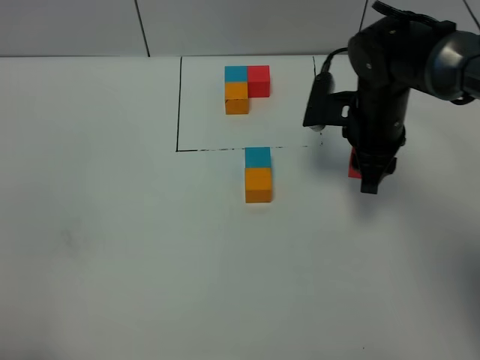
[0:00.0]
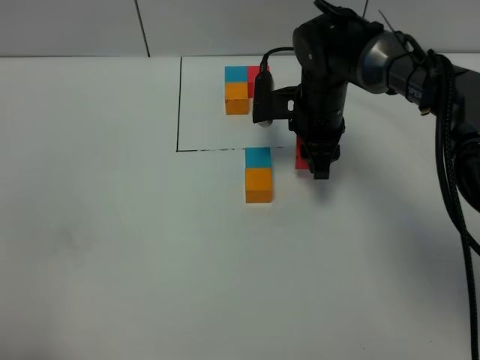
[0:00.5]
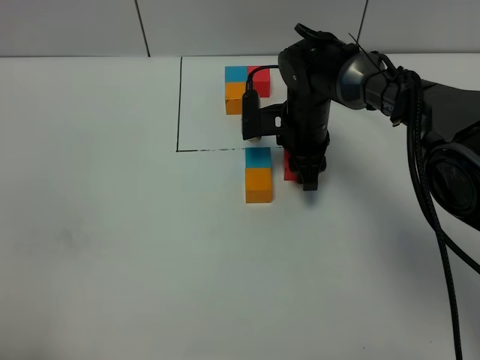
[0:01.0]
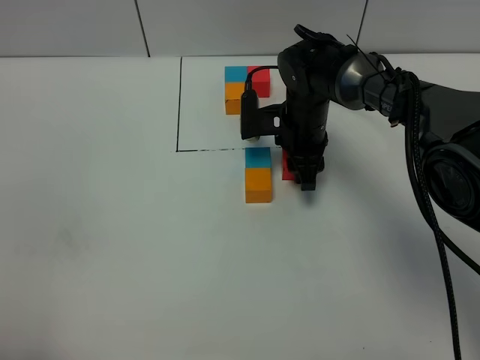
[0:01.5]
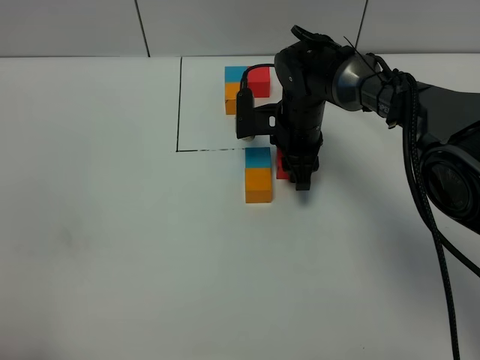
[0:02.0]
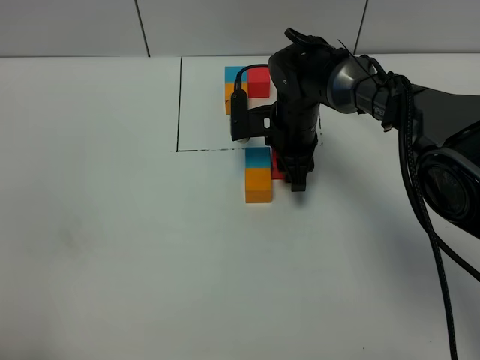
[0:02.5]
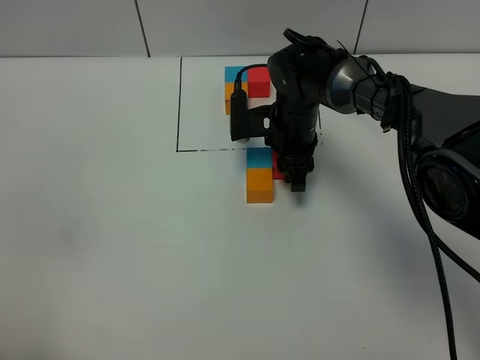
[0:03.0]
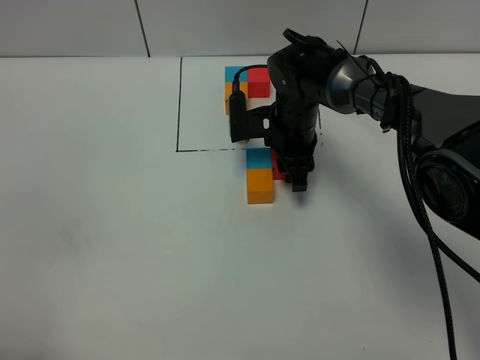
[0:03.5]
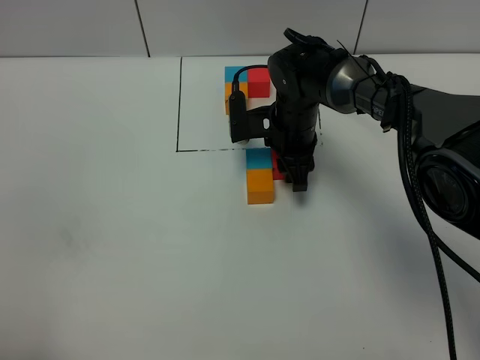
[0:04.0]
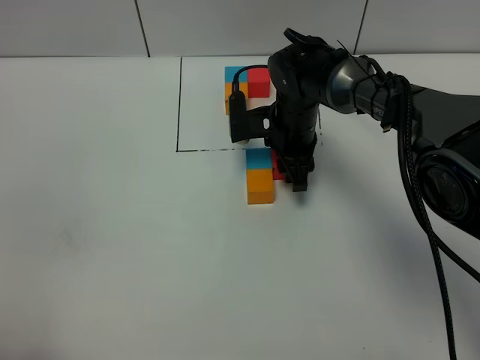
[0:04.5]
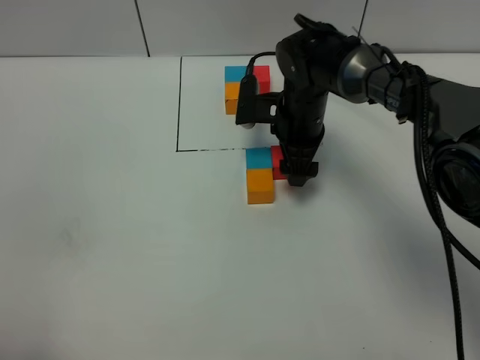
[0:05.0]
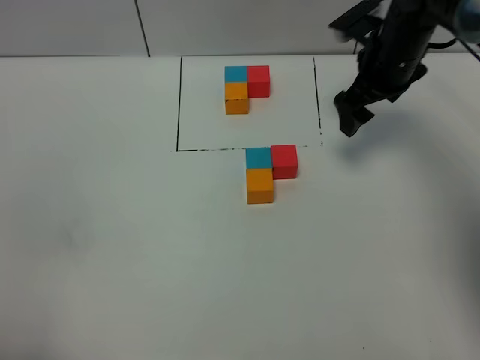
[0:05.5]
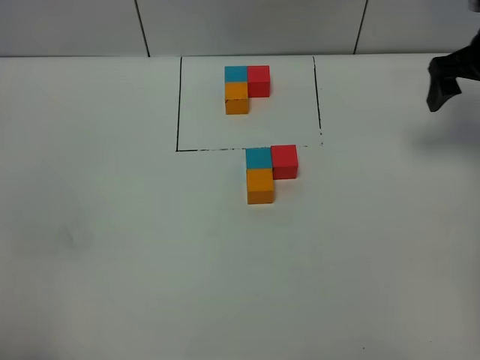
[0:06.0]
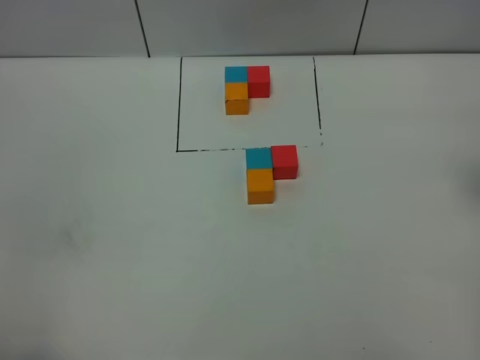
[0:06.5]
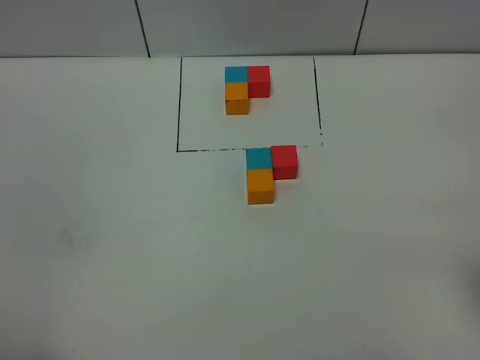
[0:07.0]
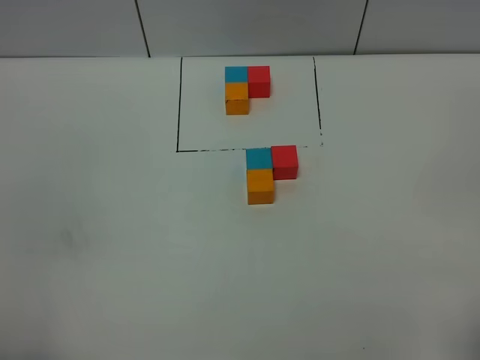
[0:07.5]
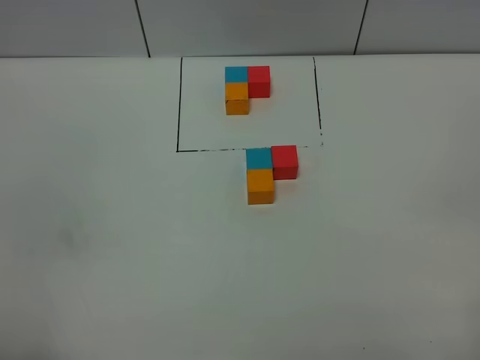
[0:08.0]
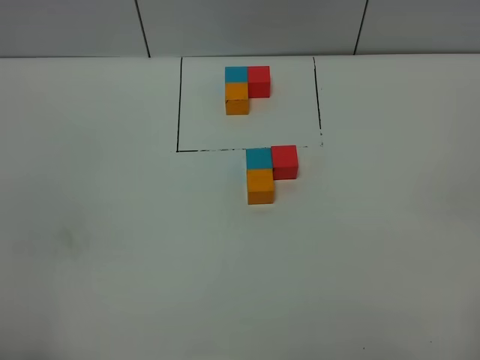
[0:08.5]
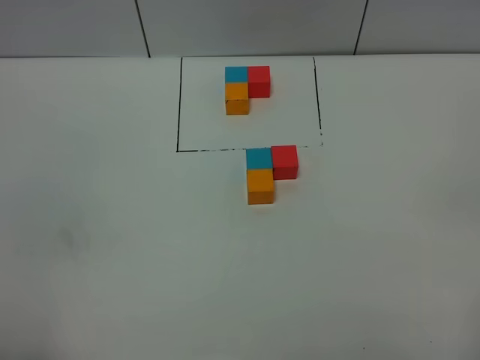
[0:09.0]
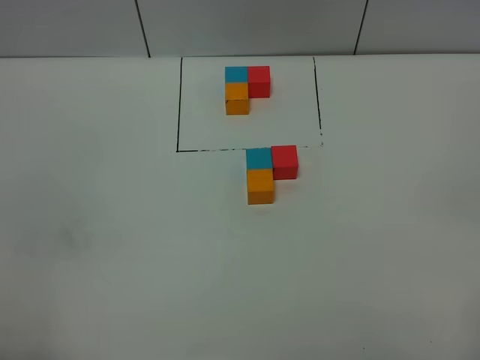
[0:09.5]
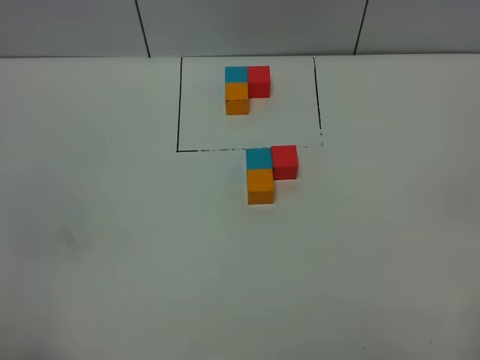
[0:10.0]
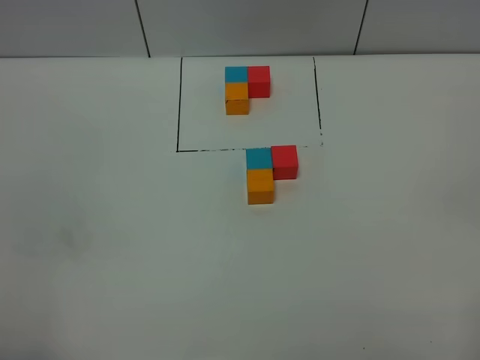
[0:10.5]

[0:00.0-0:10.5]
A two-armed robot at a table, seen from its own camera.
Task of the whole recording: According to the building block template in front, assemble the scattered blocks together.
Step, 0:00.0 to 0:04.5: Put the red build block on the right of the blue build block.
0:00.0 to 0:02.0: The right gripper goes about 10 cm to the left and downward.
0:02.0 to 0:04.0: Both grippers stay about where they are.
0:04.0 to 0:06.5: The right gripper moves to the right, upward and backward, some 35 cm, and opens.
0:08.5 to 0:10.5: Both grippers stay about where they are.

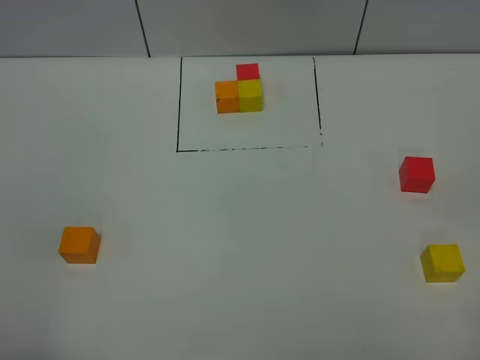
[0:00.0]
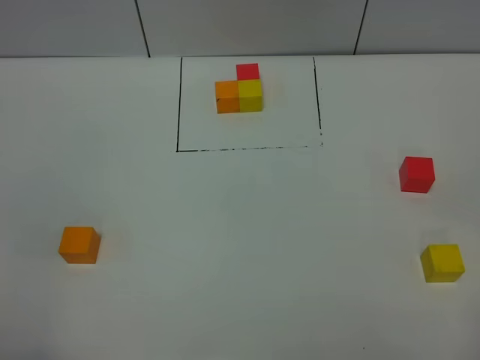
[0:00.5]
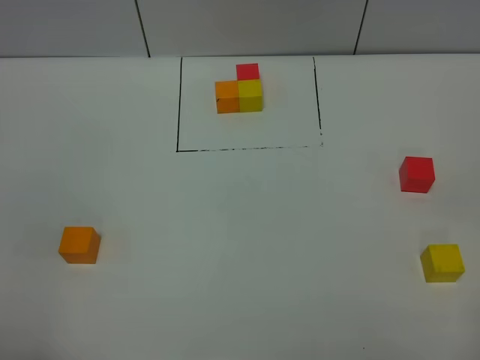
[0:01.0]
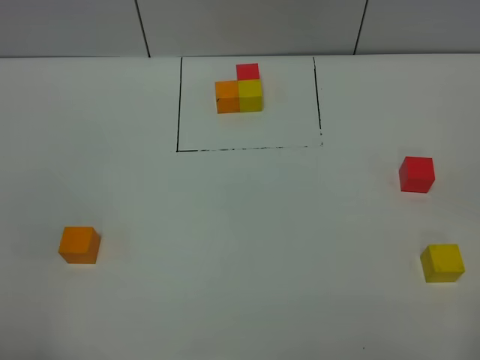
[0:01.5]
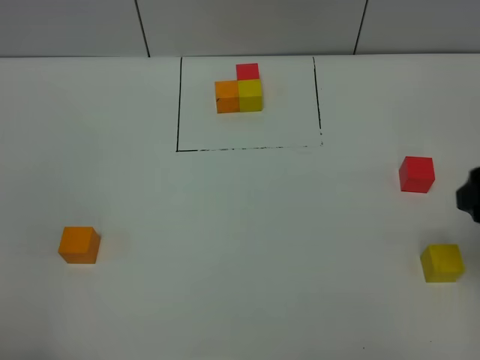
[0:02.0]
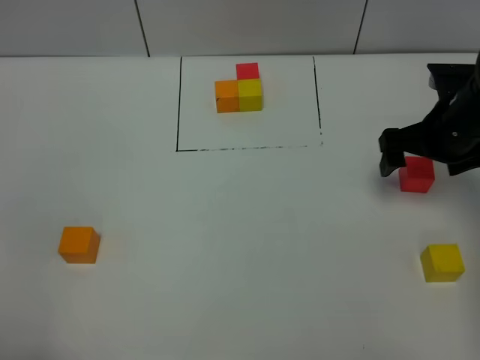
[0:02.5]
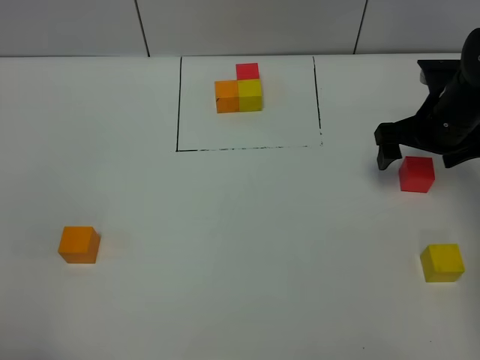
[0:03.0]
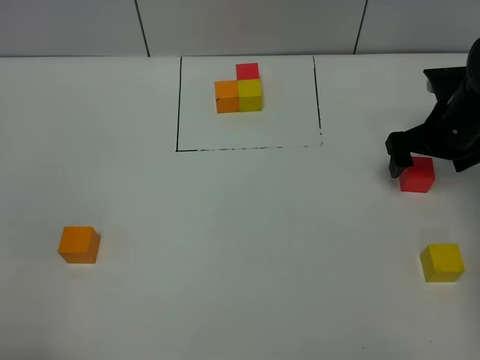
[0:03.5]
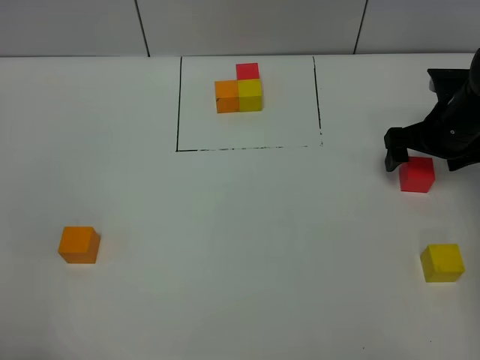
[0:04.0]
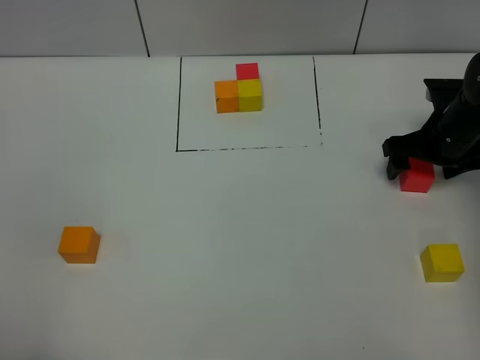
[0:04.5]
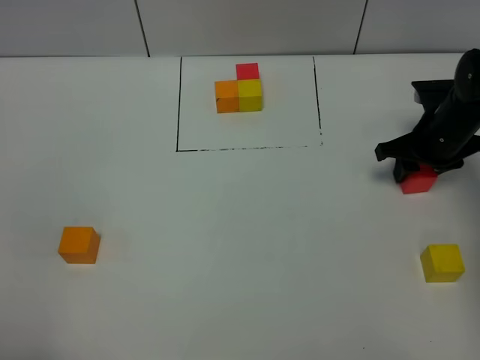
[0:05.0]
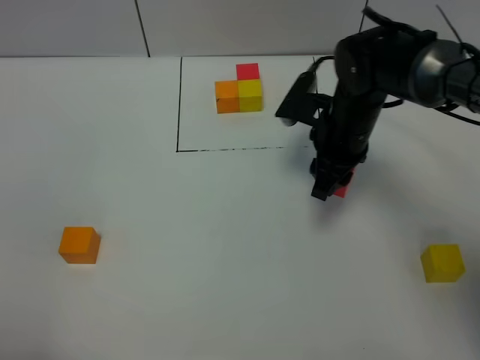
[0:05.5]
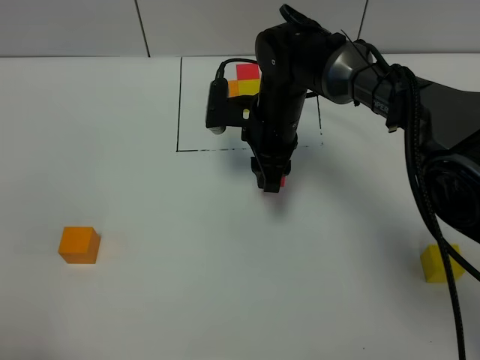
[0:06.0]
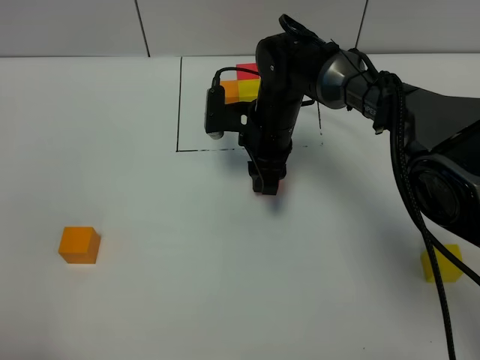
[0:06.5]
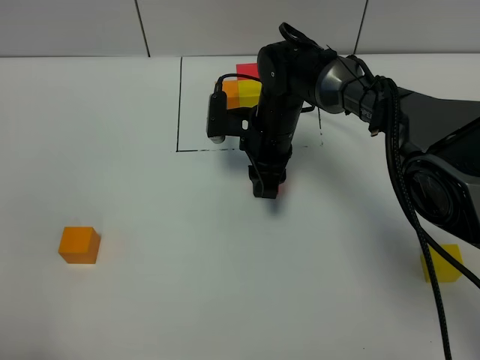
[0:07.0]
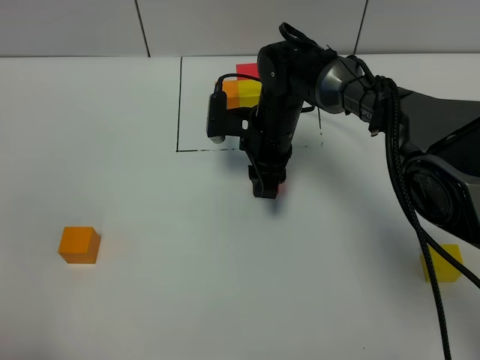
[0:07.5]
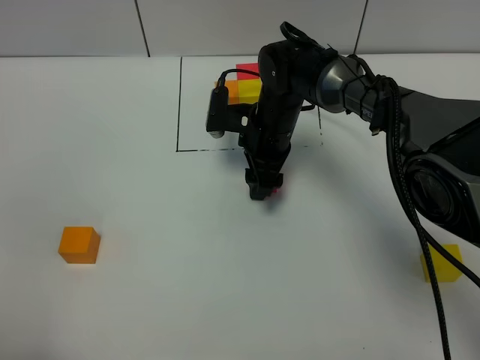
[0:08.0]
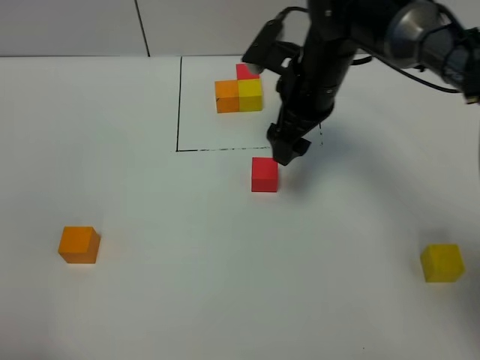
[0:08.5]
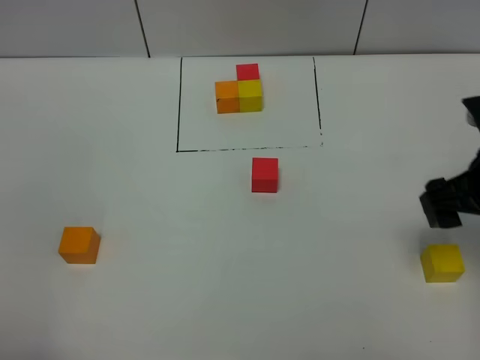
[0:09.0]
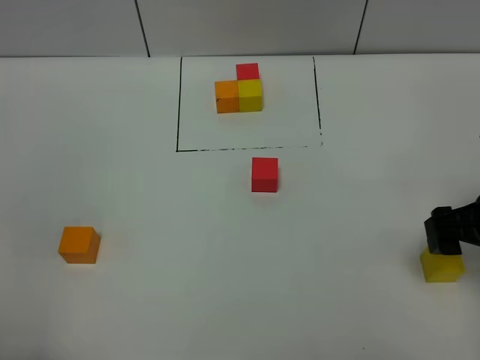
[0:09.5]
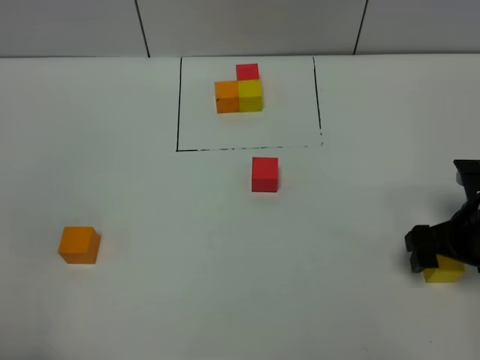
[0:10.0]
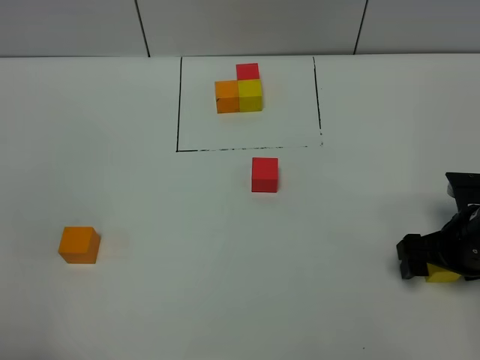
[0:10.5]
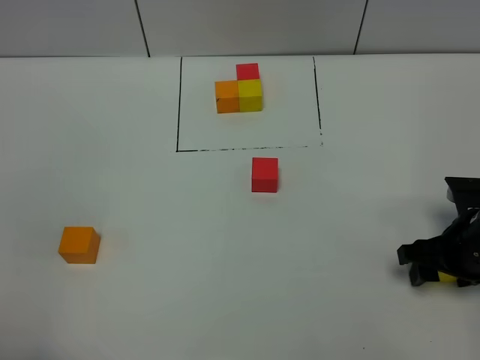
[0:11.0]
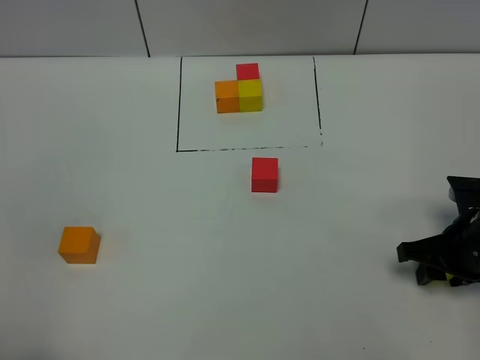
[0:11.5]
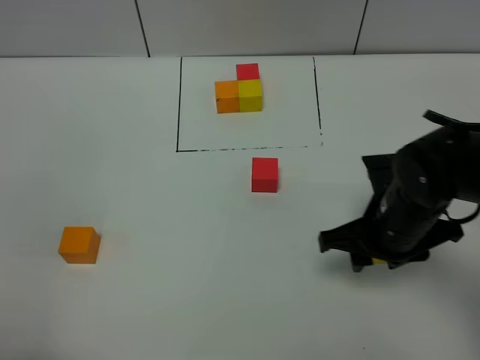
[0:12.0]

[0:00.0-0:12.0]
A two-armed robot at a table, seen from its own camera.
Task of the whole recording: According to the building block template in front, assemble the scattered blocks together.
Step, 0:00.0 to 0:07.5: Put the red build block in the center of the table.
0:00.0 to 0:02.0: The right gripper heads forward, covering some 20 cm.
0:02.0 to 0:04.0: The right gripper travels forward and downward by approximately 25 cm.
0:04.0 to 0:06.0: The right gripper goes about 25 cm to the left, and closes.
0:06.0 to 0:08.0: The right gripper opens.
0:08.0 to 0:10.0: The right gripper moves to the right and backward, approximately 30 cm.
0:10.0 to 0:12.0: The right gripper heads to the left, covering some 10 cm, and closes.

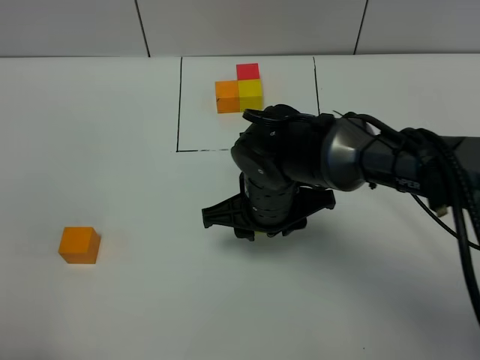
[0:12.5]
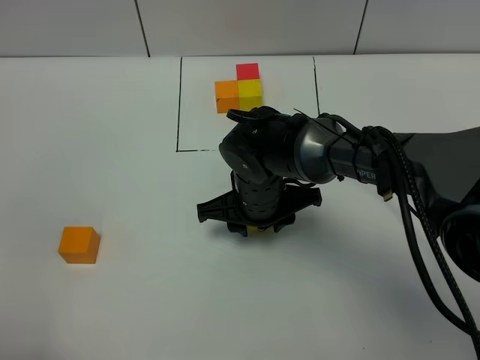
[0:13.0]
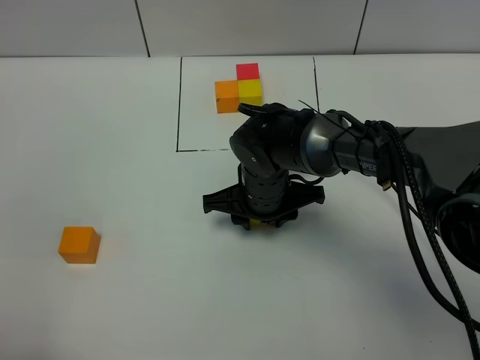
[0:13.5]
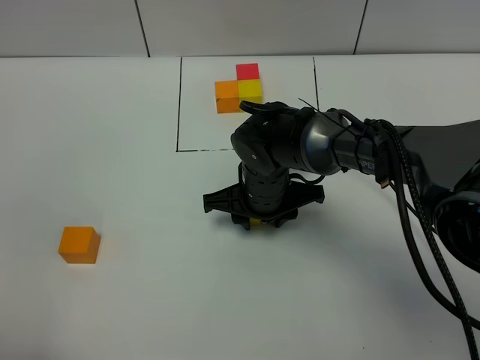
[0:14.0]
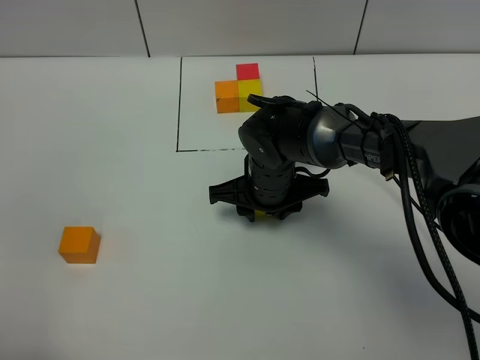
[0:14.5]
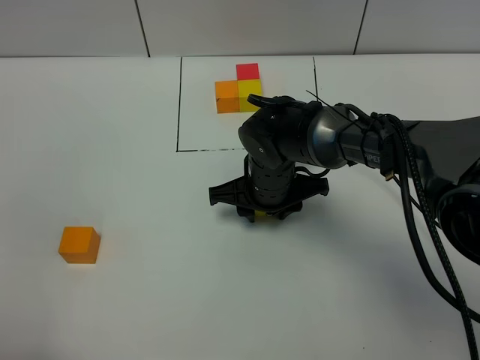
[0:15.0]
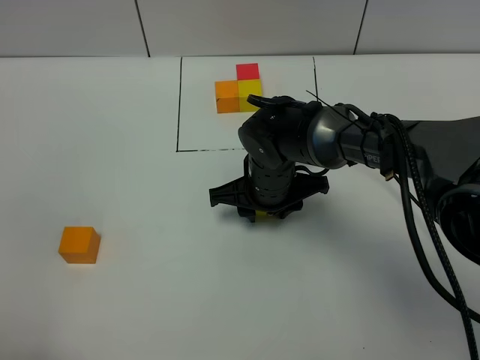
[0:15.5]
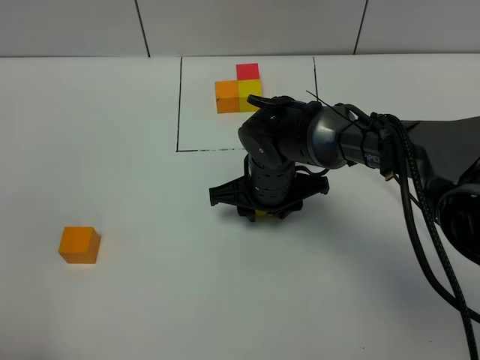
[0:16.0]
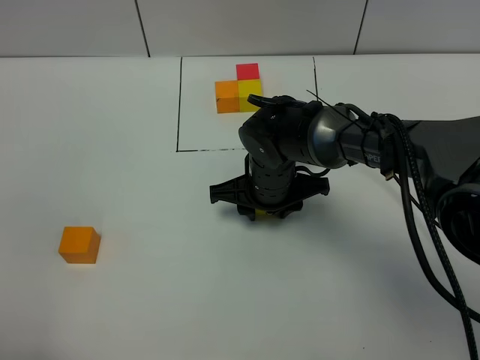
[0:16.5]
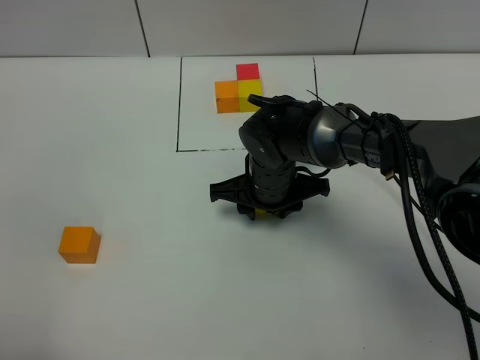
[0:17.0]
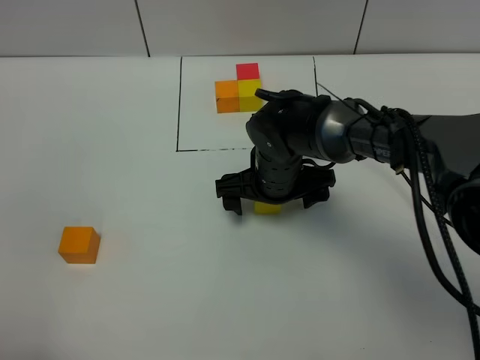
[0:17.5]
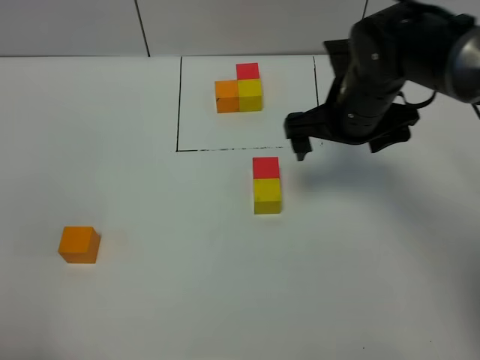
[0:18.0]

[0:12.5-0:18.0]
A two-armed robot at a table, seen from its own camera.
Task of the whole recording: According to the building block template in front, assemble the scattered blocks together.
Step, 0:12.5 to 0:17.0: Put the yellow build block on the behind of the red build block.
0:12.5 to 0:14.5: The right gripper goes roughly 5 cm forward.
0:14.5 to 0:16.0: Both grippers stay about where they are.
0:16.0 to 0:18.0: The right gripper travels to the right and upward by some 15 cm, and opens its fingers.
